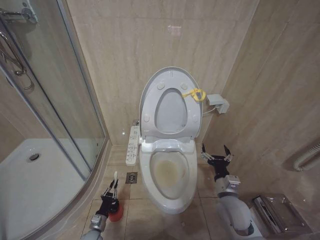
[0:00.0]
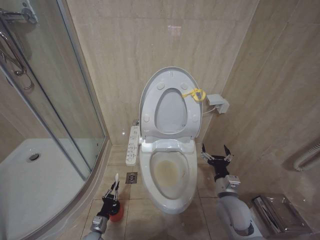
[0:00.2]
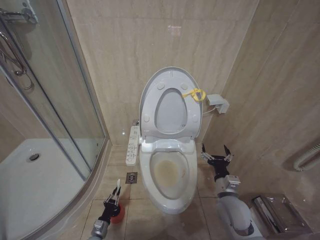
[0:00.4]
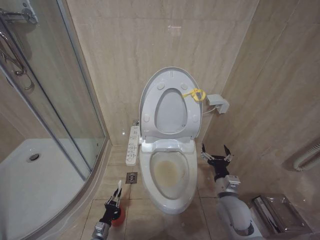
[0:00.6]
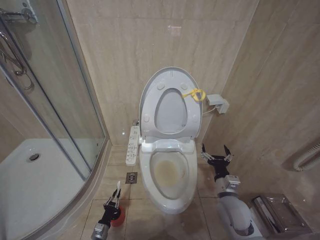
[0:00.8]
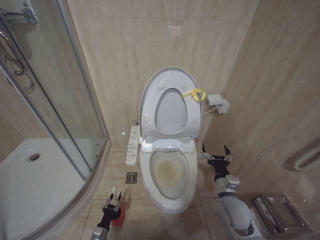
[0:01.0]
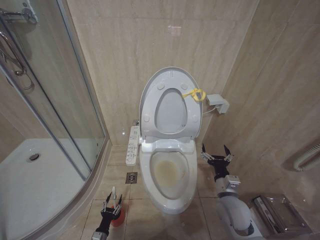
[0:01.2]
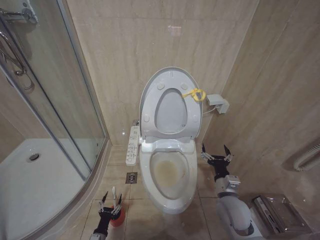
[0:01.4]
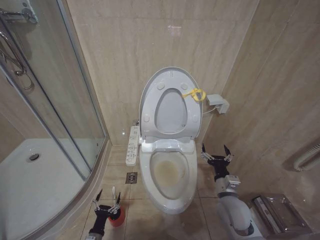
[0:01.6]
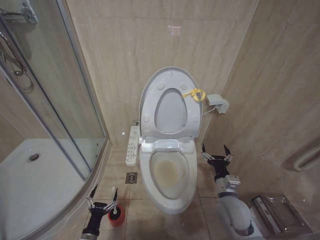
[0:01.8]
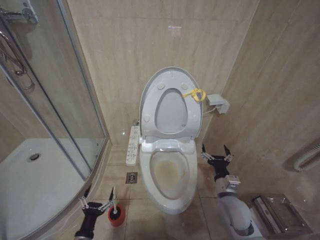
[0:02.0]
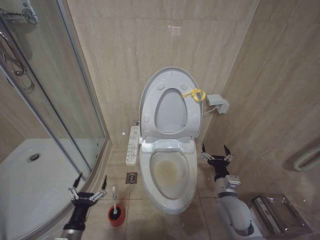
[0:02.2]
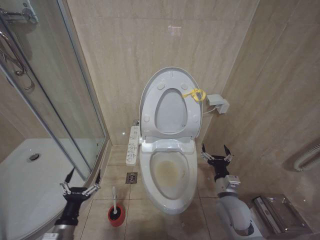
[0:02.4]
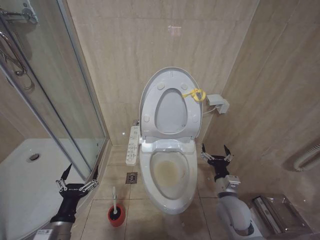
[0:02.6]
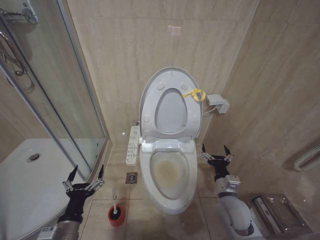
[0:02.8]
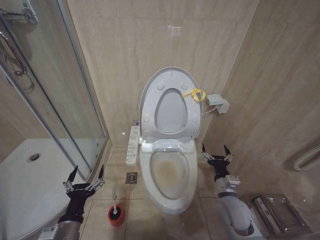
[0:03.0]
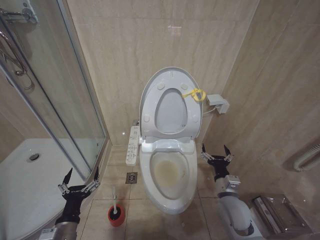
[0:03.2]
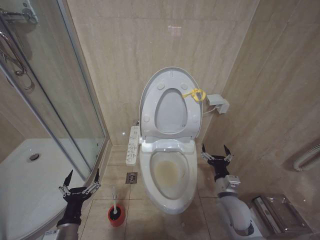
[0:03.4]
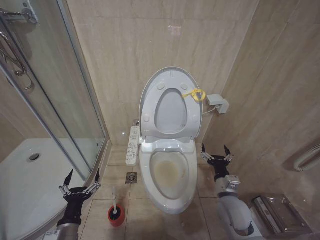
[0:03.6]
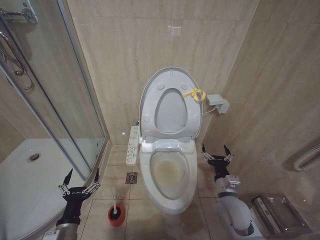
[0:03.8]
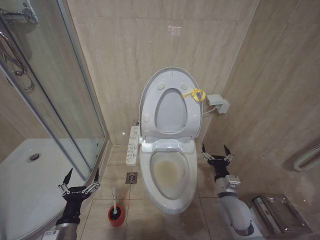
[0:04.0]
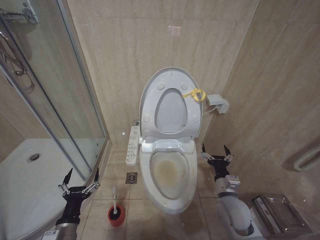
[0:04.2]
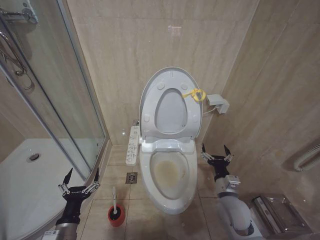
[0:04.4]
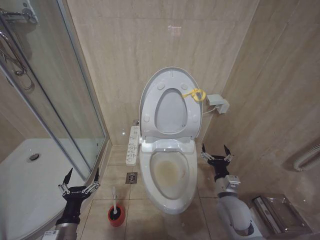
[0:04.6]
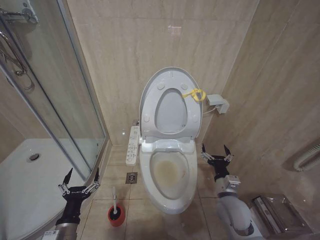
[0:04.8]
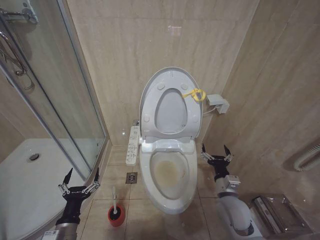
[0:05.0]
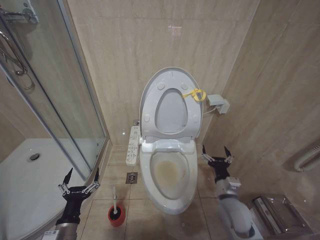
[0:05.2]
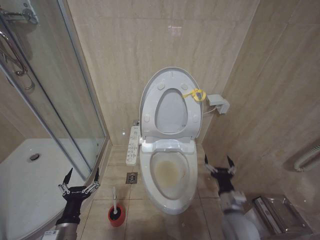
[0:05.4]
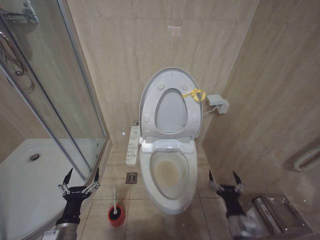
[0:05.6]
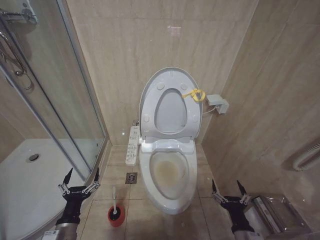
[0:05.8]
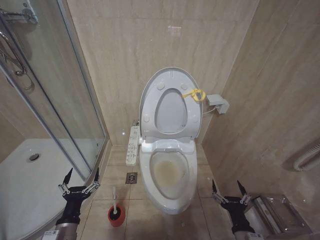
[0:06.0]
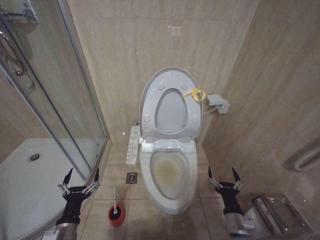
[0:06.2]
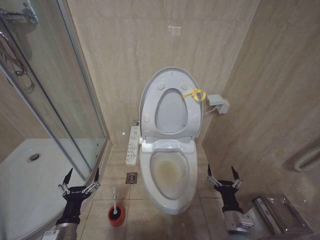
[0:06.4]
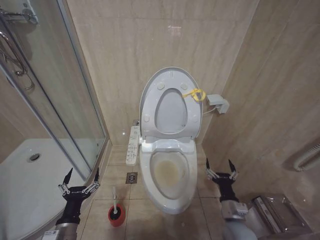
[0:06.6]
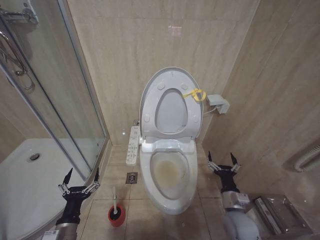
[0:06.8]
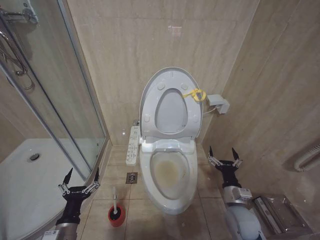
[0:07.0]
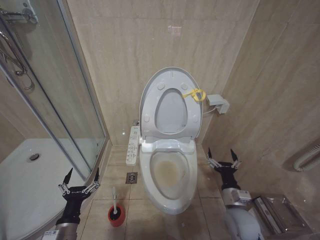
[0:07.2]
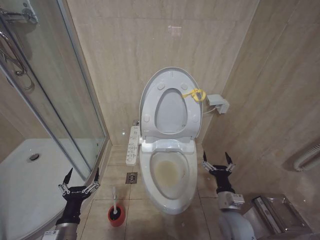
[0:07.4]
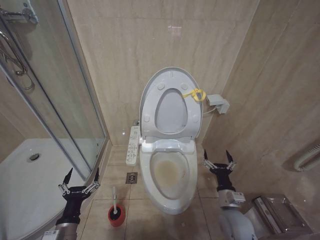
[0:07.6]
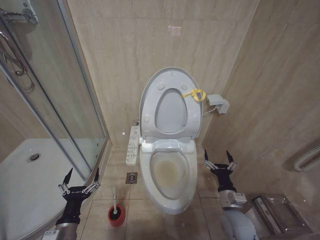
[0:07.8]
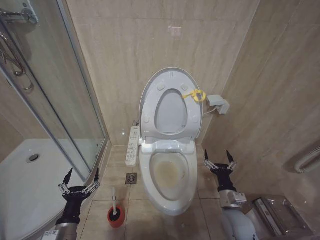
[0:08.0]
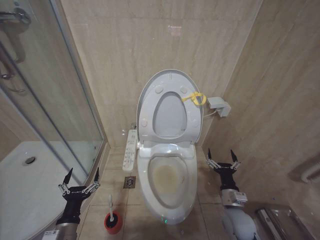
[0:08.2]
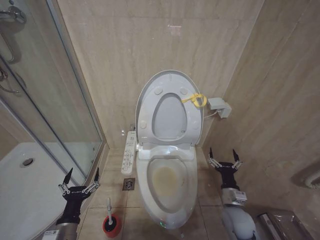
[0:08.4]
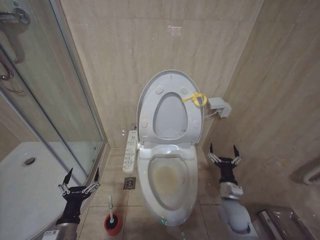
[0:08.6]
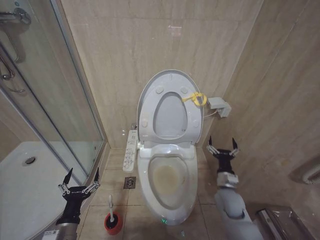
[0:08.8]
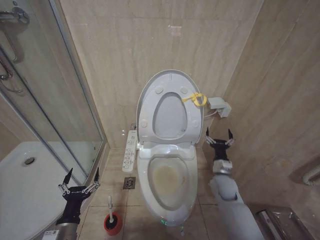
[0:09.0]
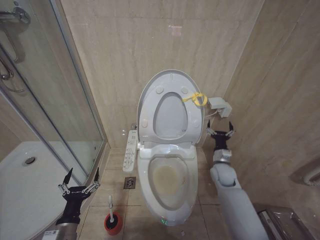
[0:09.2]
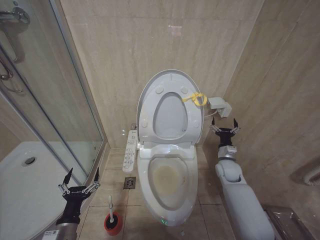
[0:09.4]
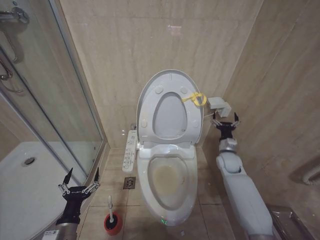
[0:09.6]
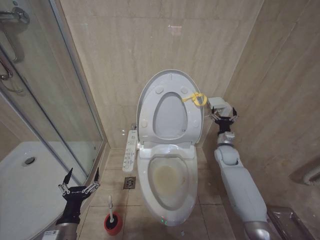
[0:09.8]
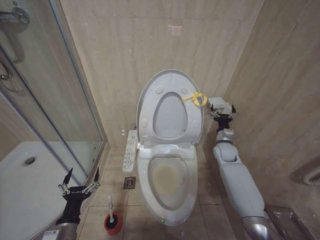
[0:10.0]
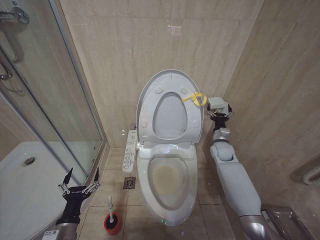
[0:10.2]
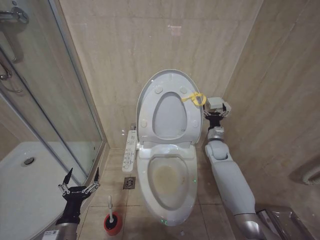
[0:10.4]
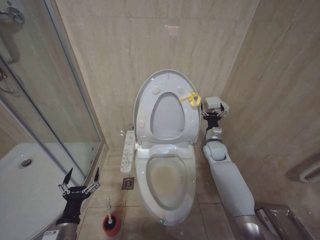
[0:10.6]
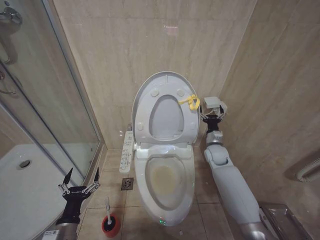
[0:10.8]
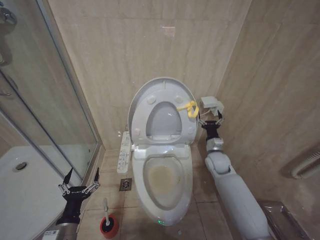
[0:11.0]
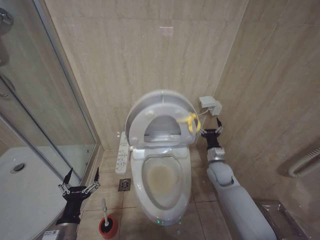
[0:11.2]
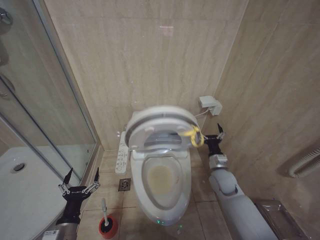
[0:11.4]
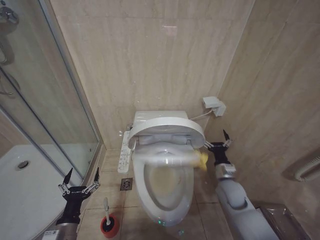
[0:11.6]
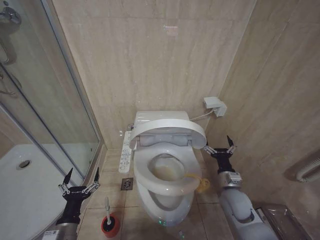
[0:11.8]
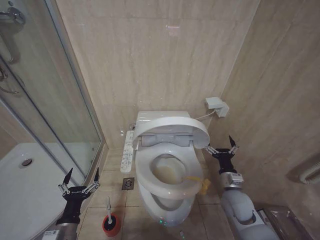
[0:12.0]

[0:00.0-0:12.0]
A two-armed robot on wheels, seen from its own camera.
Task of the whole recording: Open the toilet lid, clean the toilet bowl with a toilet brush, close the toilet lid, and flush.
0:00.0 to 0:01.6: The left gripper heads backward, covering some 10 cm, and opens its fingers.
0:01.6 to 0:03.0: The left gripper is displaced upward by approximately 30 cm.
0:03.0 to 0:04.4: There are only small adjustments of the grippers.
0:04.4 to 0:06.0: The right gripper moves backward, about 15 cm.
0:06.0 to 0:07.6: The right gripper moves forward, some 10 cm.
0:07.6 to 0:09.0: The right gripper travels forward by about 10 cm.
0:09.0 to 0:10.4: The right gripper heads forward and upward, covering roughly 15 cm.
0:10.4 to 0:12.0: The right gripper travels backward by some 20 cm.

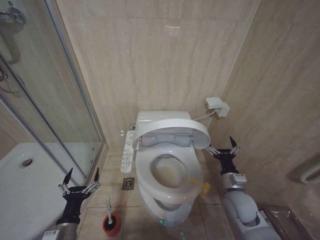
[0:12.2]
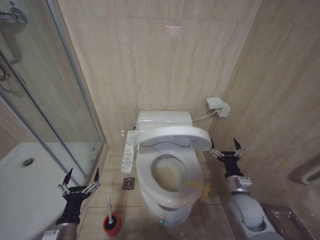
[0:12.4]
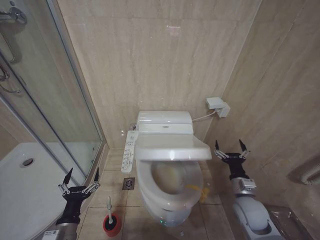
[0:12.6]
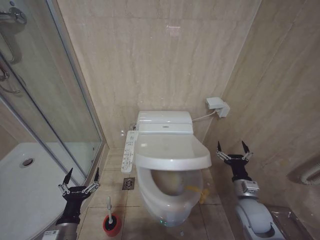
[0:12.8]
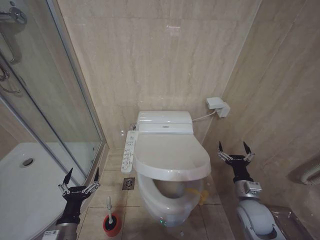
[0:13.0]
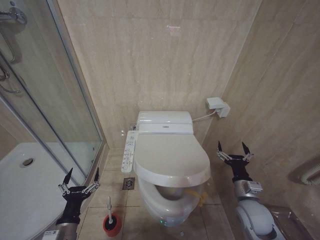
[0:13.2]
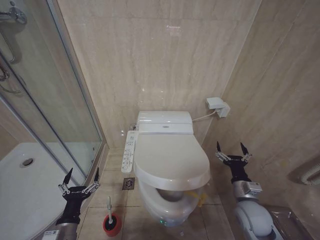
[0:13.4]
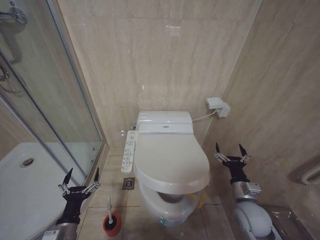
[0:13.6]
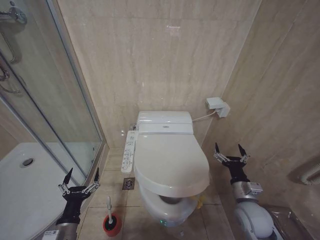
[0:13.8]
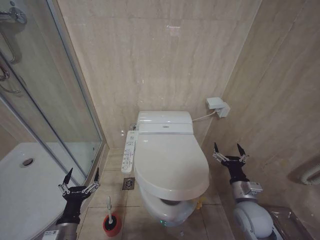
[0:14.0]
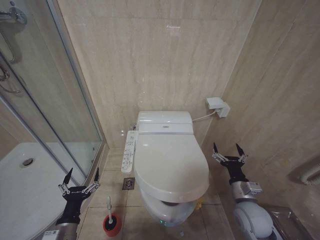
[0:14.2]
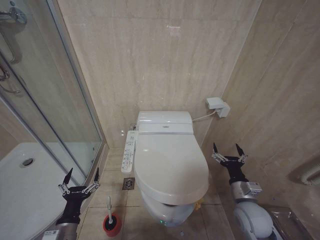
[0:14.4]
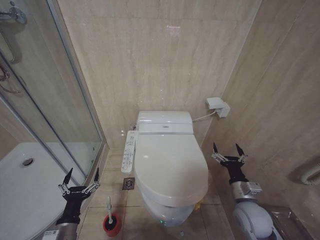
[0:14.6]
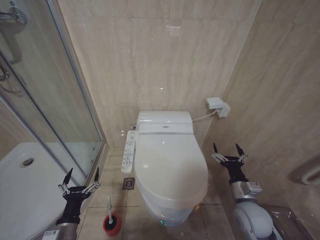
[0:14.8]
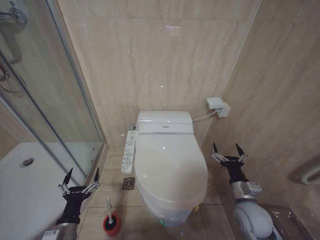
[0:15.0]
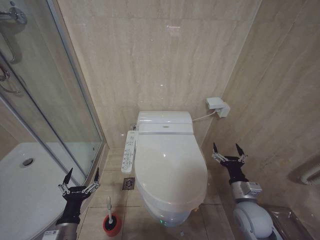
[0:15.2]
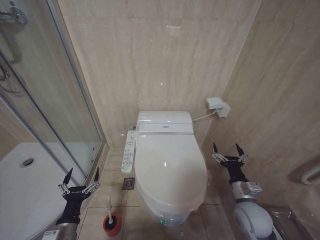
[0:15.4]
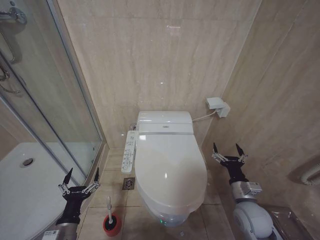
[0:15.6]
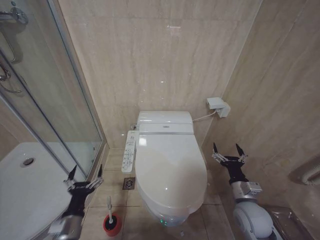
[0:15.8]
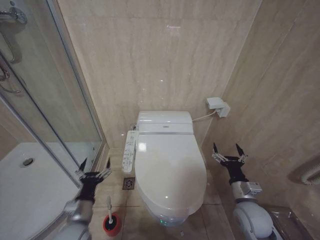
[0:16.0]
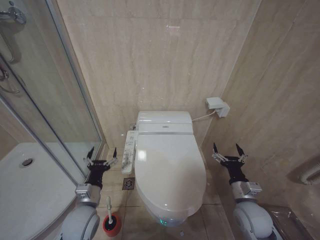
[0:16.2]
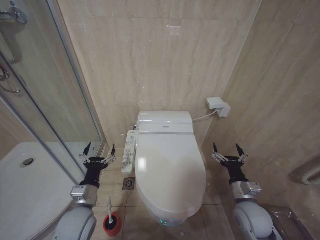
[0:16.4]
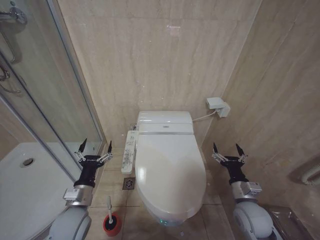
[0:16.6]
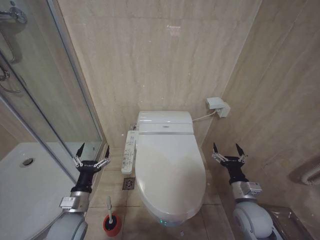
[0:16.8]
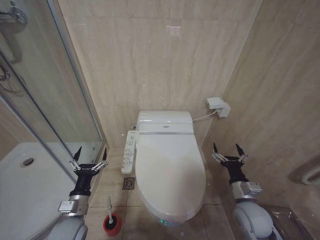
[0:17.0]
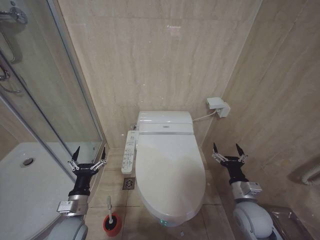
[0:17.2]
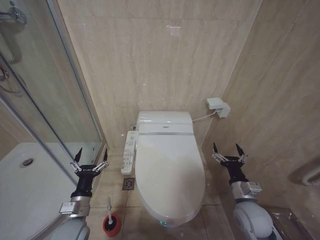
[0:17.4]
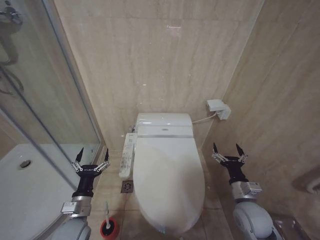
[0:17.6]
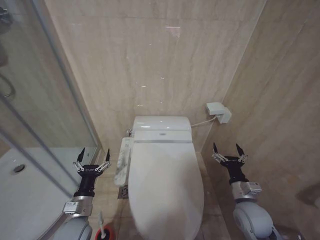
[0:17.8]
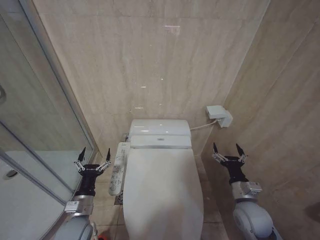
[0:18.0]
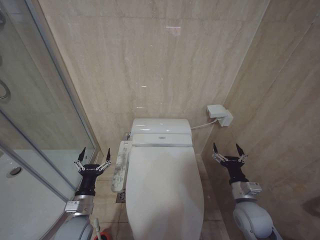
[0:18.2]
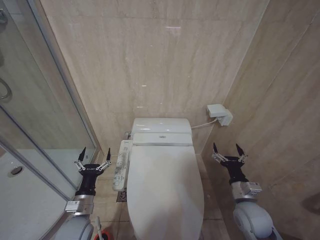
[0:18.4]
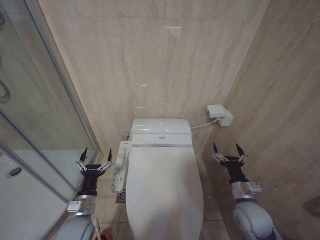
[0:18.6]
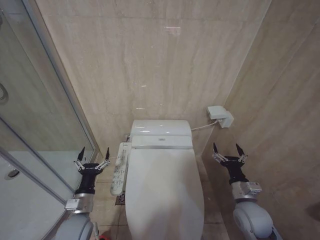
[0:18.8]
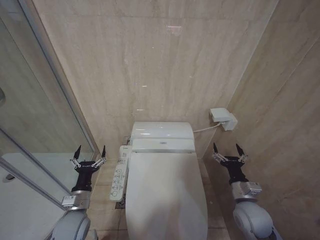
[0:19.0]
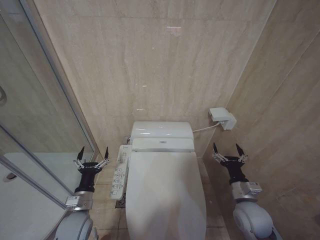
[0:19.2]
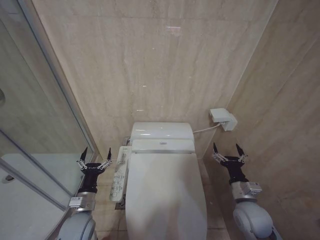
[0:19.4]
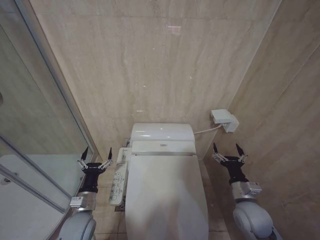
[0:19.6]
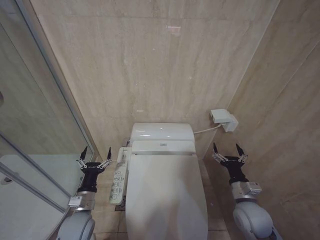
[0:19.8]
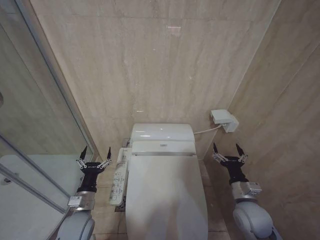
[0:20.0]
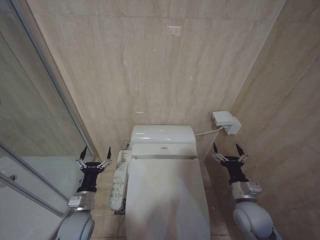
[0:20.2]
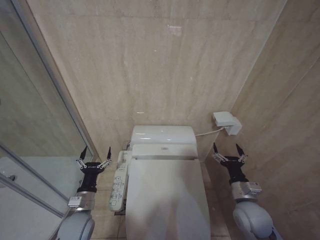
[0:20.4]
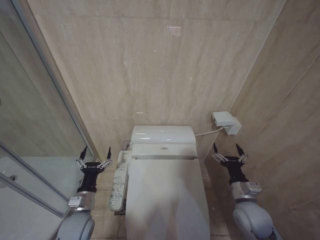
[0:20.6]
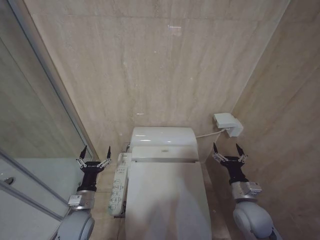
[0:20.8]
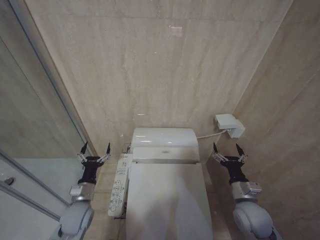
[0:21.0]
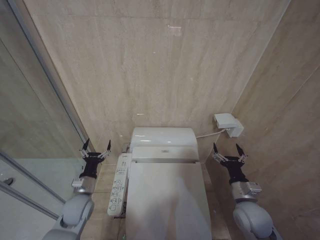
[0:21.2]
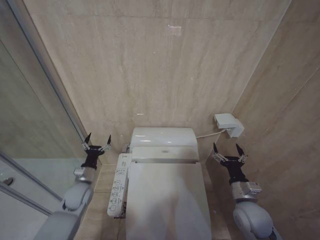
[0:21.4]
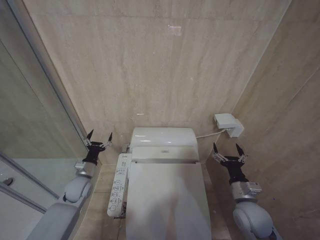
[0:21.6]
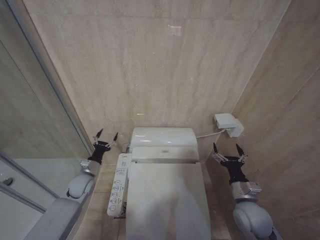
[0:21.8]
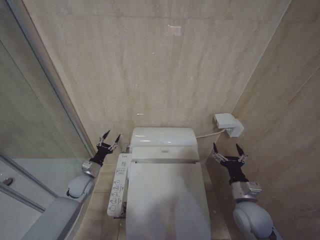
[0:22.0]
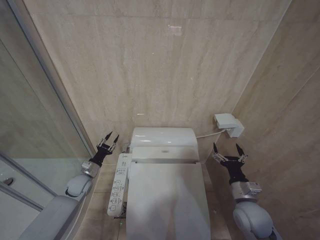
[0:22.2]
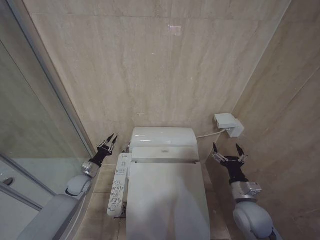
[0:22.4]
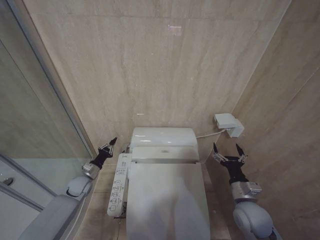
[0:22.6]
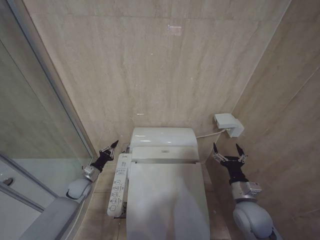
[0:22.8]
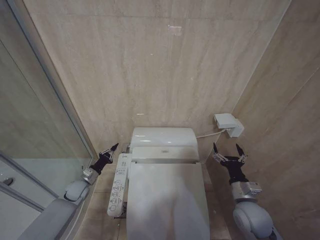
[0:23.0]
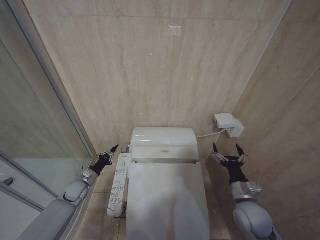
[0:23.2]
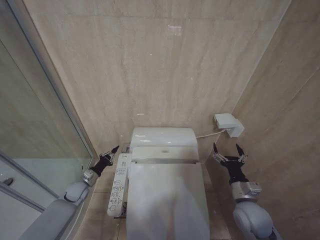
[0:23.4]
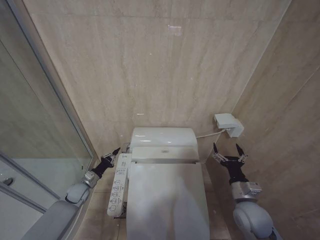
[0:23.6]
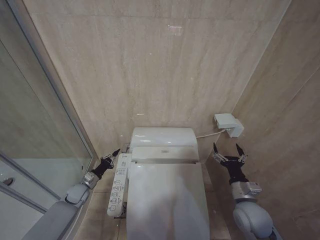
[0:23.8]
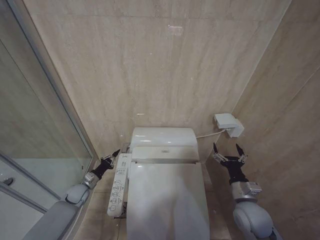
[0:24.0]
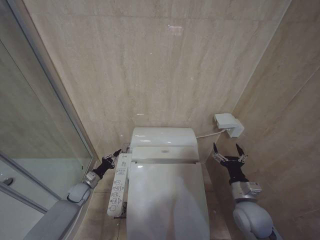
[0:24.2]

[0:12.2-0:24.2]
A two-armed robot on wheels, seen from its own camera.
Task of the whole recording: Open the toilet lid, clean the toilet bowl with a toilet brush, close the toilet lid, and flush.
0:12.2 to 0:13.8: The grippers move only a little.
0:13.8 to 0:15.2: The two grippers keep their place.
0:15.2 to 0:16.6: The left gripper is displaced forward and upward by about 10 cm.
0:16.6 to 0:18.2: The left gripper goes approximately 5 cm downward.
0:18.2 to 0:19.8: The grippers make only small movements.
0:19.8 to 0:21.2: The left gripper ends up roughly 5 cm from where it was.
0:21.2 to 0:22.6: The left gripper heads forward and to the left, covering approximately 15 cm, and closes its fingers.
0:22.6 to 0:24.2: The left gripper is displaced downward by some 5 cm.
